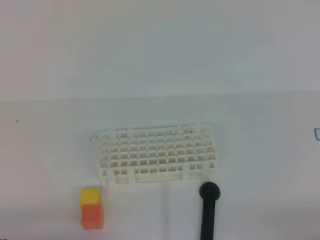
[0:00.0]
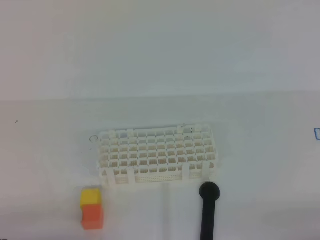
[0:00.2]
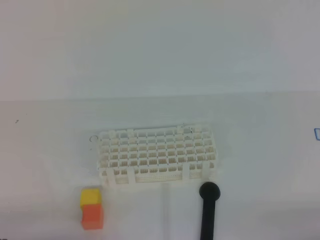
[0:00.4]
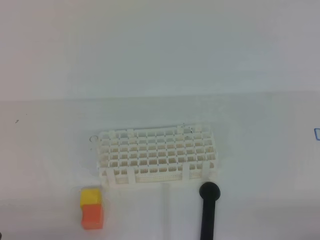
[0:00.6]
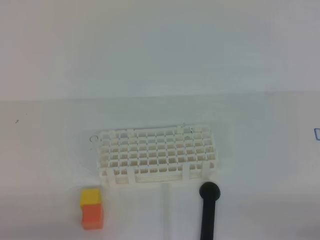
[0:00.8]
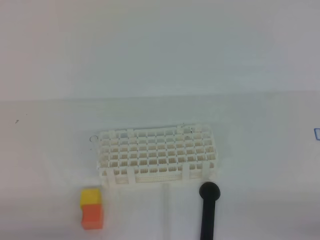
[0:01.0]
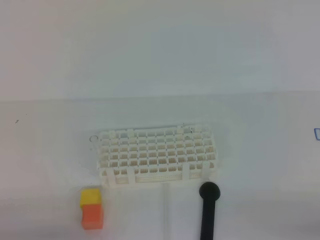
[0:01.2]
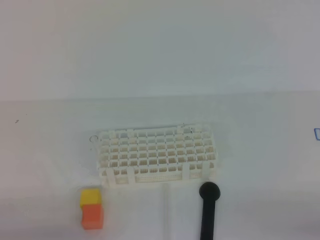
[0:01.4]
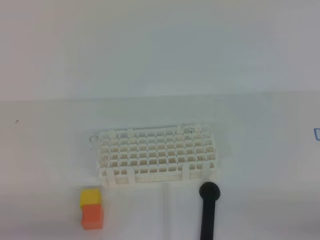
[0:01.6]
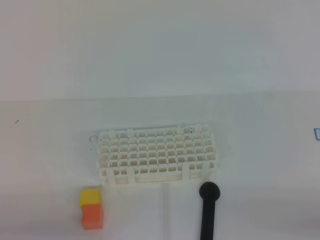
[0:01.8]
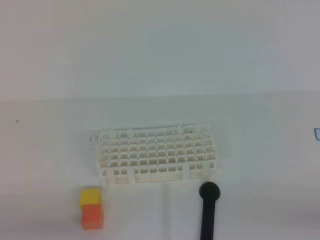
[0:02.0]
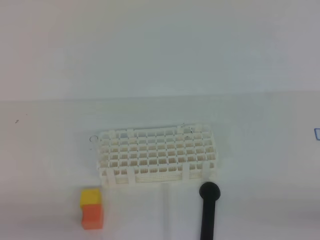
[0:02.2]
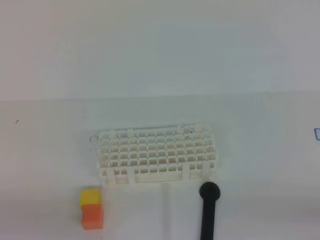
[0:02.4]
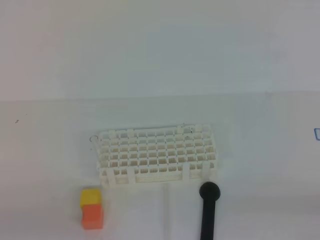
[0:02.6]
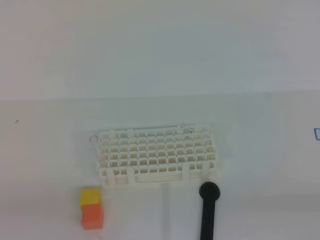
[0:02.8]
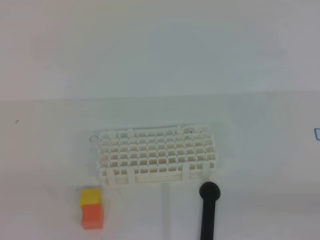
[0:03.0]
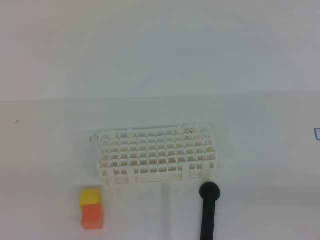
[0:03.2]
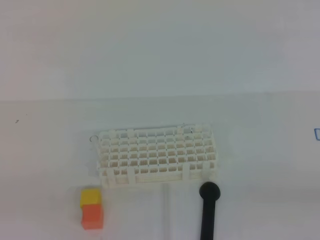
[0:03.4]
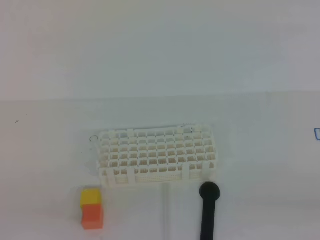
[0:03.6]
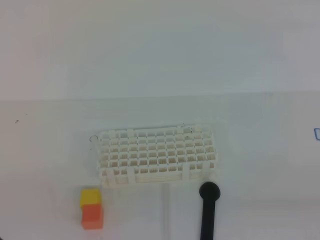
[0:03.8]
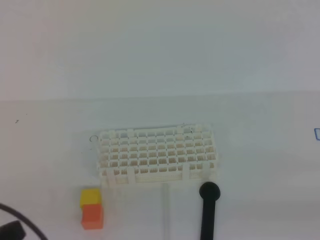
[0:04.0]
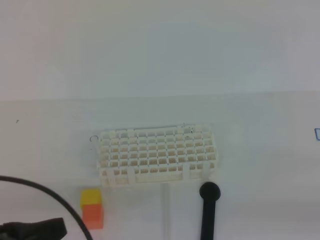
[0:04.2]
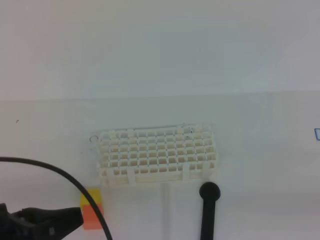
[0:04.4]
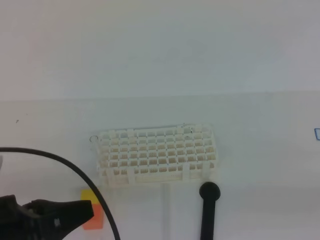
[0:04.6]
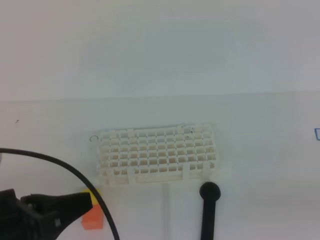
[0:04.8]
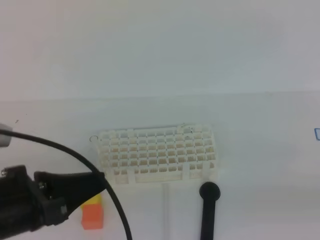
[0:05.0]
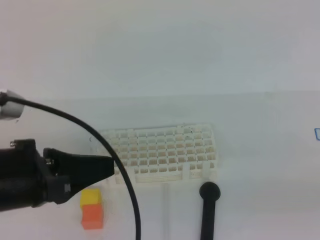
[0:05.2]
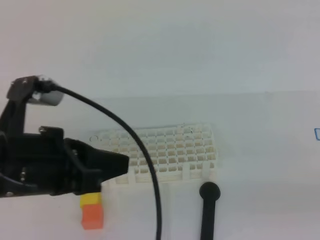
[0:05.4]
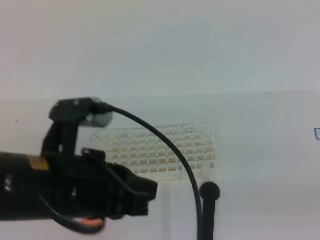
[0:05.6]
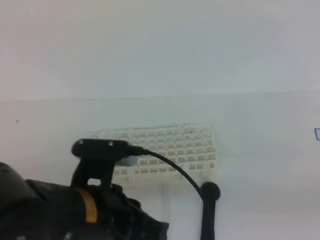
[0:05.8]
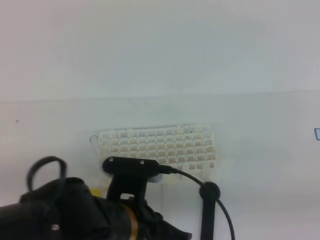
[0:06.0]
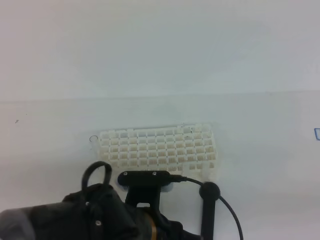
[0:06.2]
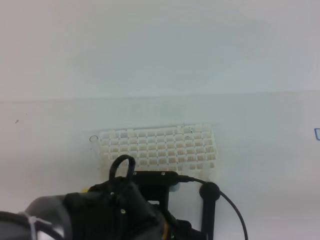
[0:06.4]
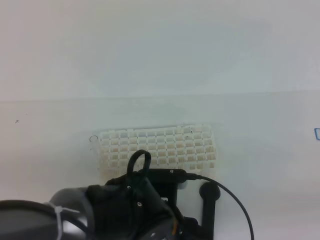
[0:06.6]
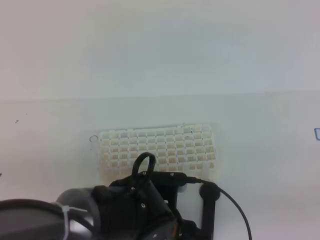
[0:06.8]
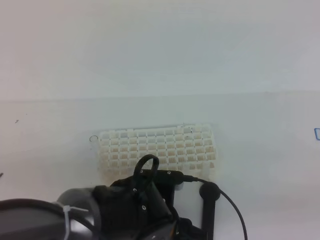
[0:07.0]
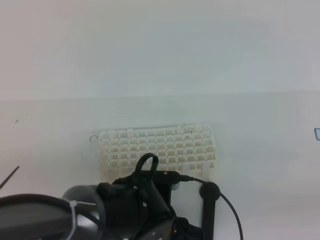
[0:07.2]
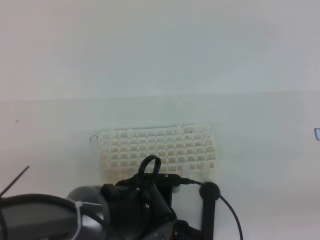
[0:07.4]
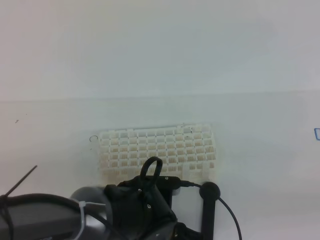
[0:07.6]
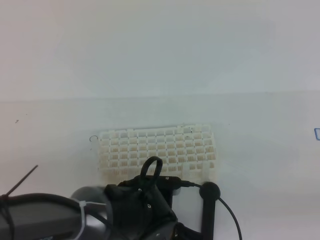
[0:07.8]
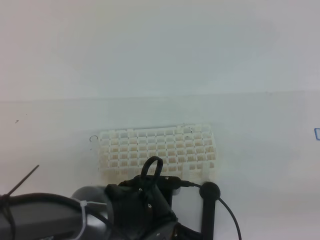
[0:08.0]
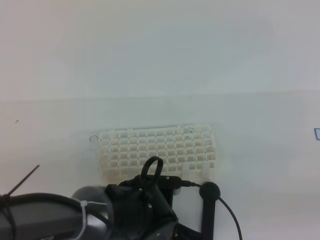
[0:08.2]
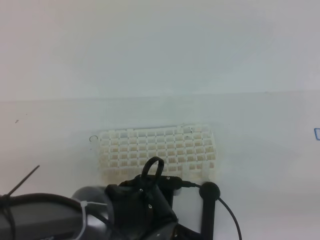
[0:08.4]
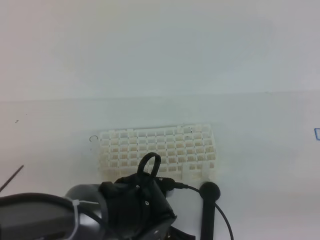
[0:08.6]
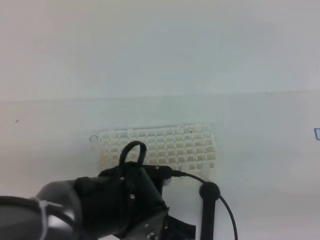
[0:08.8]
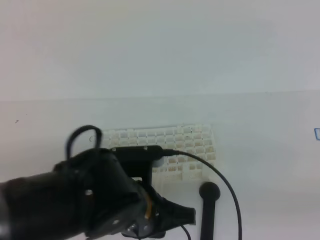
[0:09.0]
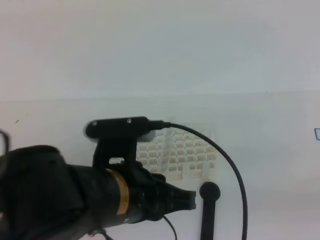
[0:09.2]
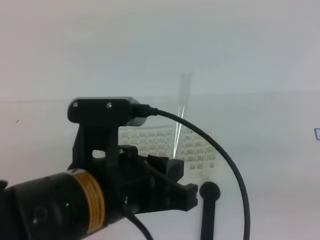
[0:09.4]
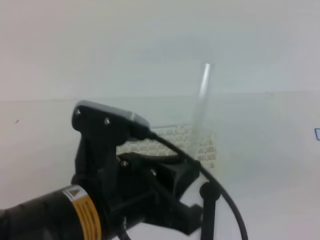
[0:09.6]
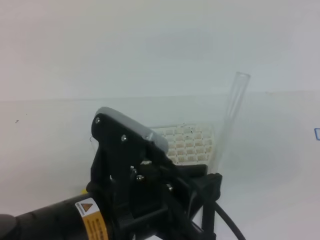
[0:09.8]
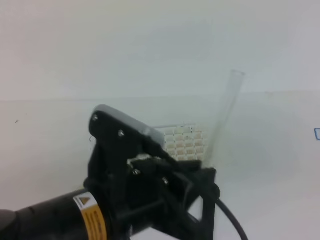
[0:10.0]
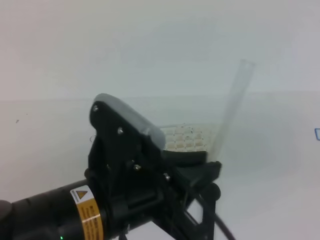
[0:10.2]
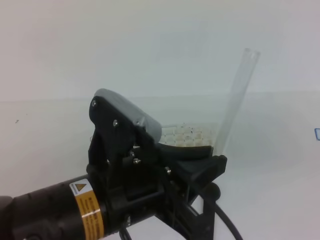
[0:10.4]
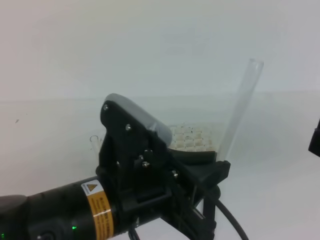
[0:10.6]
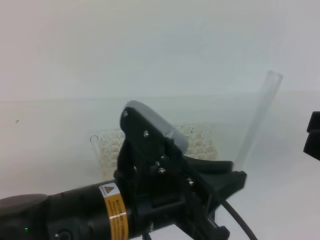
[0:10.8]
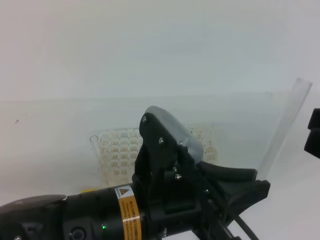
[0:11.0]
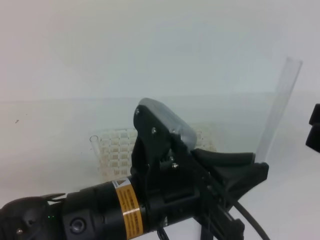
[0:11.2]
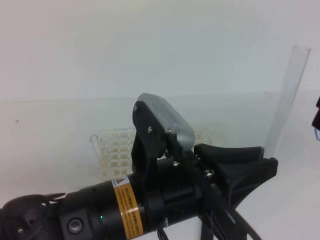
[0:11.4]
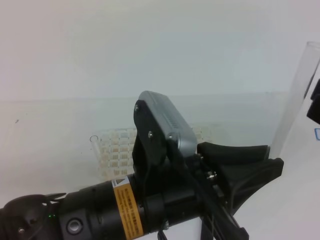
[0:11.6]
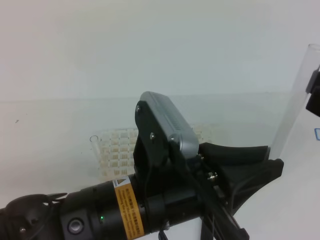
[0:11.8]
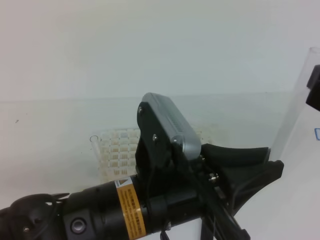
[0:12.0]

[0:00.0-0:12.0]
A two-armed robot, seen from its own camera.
0:03.0 to 0:04.4: The left gripper heads forward and to the right, covering about 10 cm.
0:04.4 to 0:06.0: The left gripper goes roughly 15 cm to the right.
0:06.0 to 0:07.6: The left gripper is displaced downward and to the right by some 10 cm, and opens up.
0:07.6 to 0:09.0: The left gripper shifts approximately 10 cm upward, and closes up.
0:09.0 to 0:10.4: The right gripper moves approximately 5 cm; the left gripper goes approximately 10 cm upward and backward.
0:10.4 to 0:12.0: The right gripper heads forward, covering roughly 5 cm, and opens.

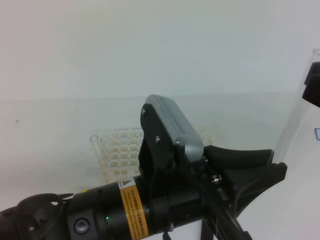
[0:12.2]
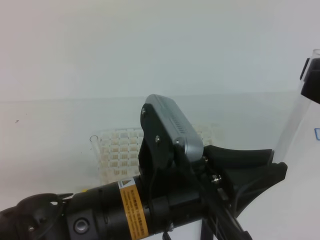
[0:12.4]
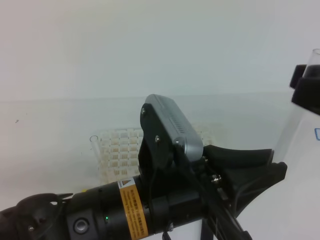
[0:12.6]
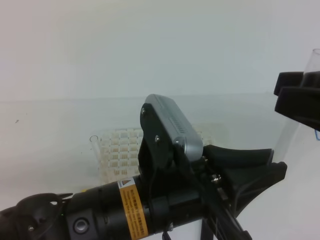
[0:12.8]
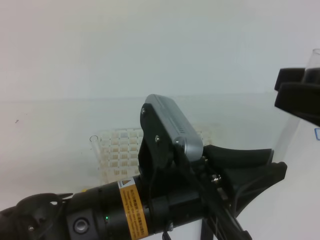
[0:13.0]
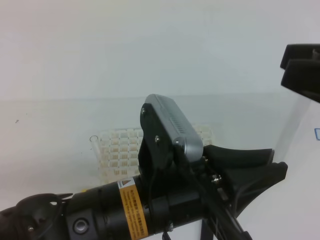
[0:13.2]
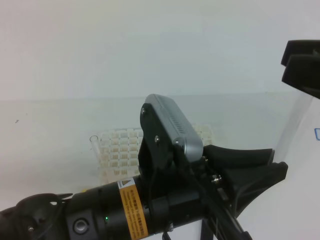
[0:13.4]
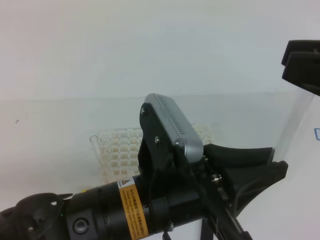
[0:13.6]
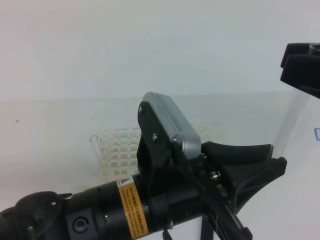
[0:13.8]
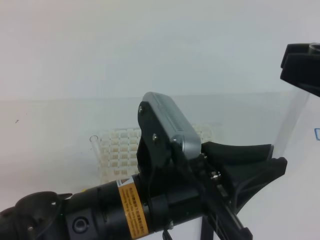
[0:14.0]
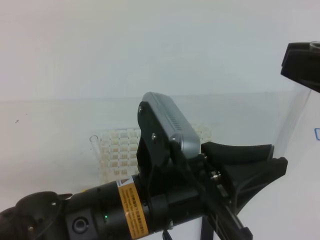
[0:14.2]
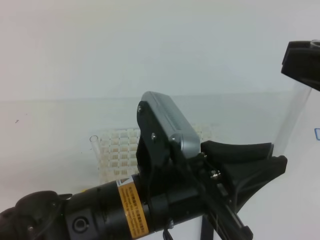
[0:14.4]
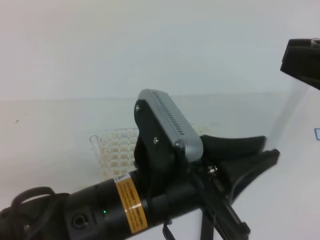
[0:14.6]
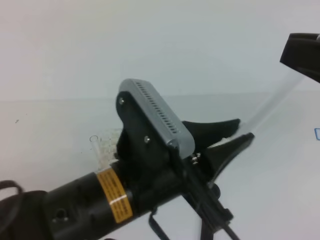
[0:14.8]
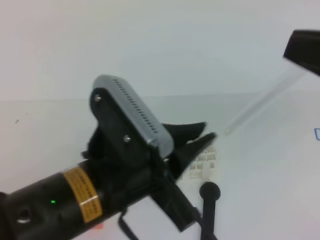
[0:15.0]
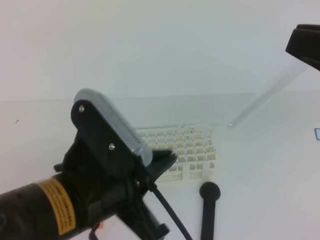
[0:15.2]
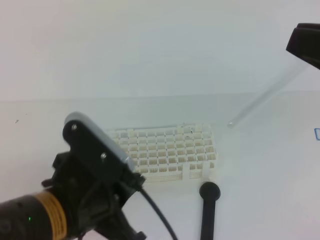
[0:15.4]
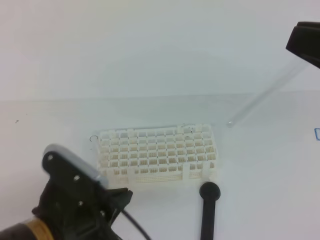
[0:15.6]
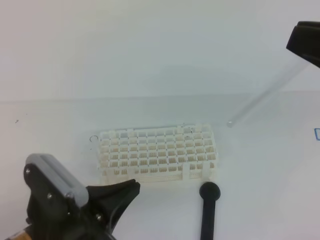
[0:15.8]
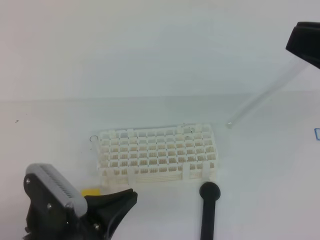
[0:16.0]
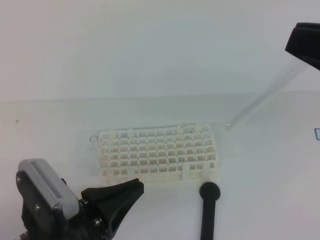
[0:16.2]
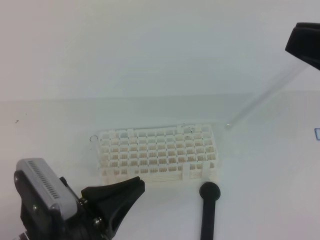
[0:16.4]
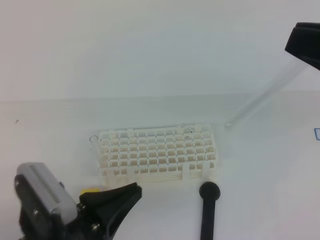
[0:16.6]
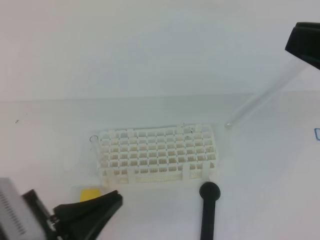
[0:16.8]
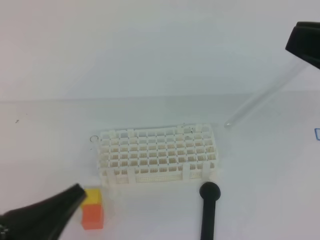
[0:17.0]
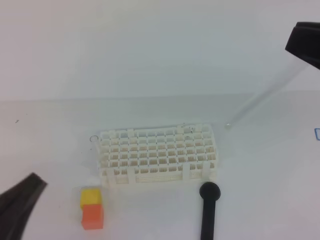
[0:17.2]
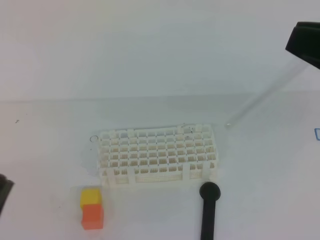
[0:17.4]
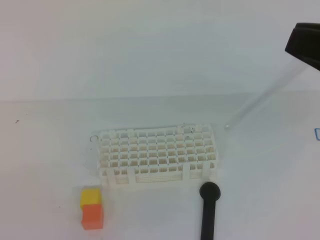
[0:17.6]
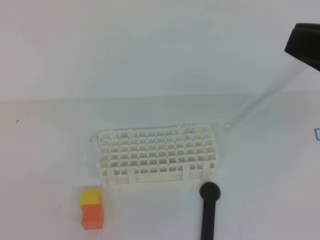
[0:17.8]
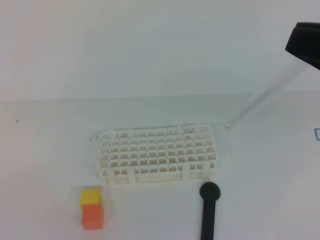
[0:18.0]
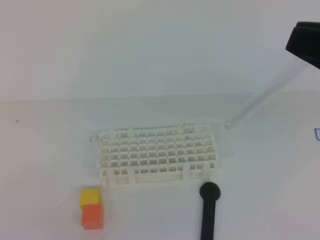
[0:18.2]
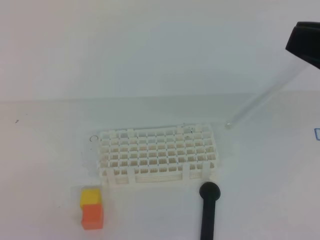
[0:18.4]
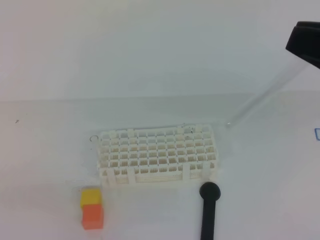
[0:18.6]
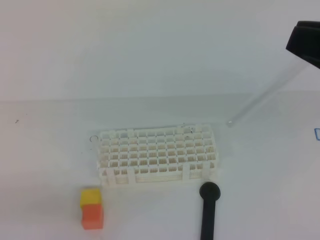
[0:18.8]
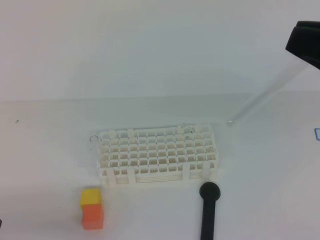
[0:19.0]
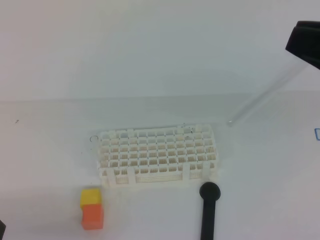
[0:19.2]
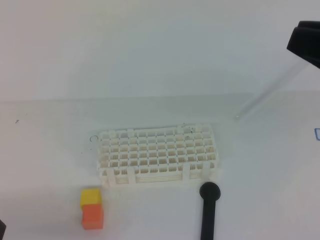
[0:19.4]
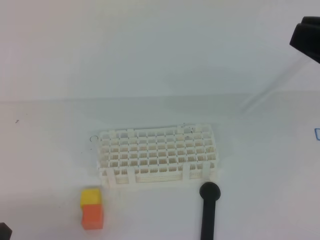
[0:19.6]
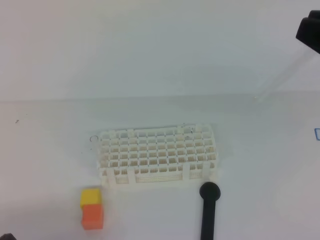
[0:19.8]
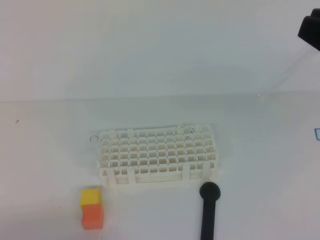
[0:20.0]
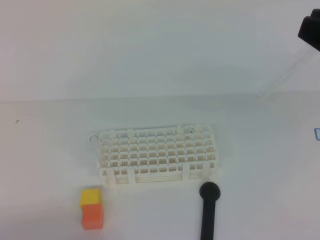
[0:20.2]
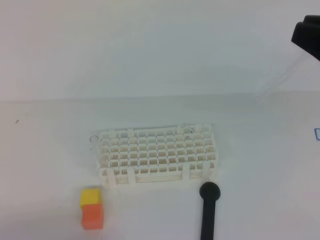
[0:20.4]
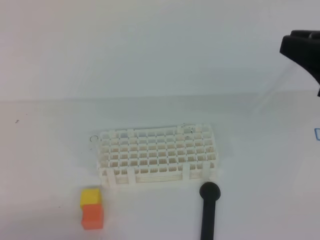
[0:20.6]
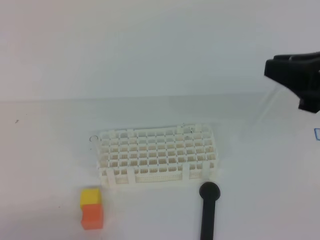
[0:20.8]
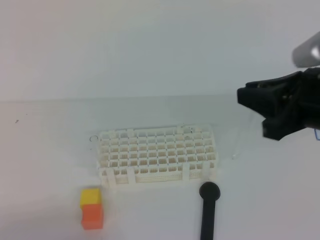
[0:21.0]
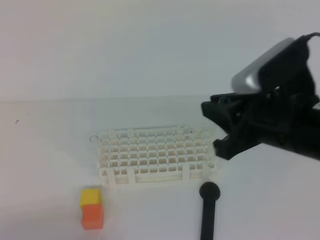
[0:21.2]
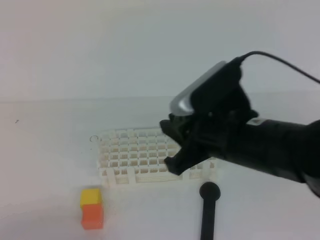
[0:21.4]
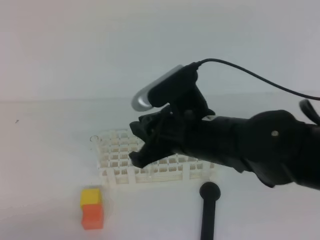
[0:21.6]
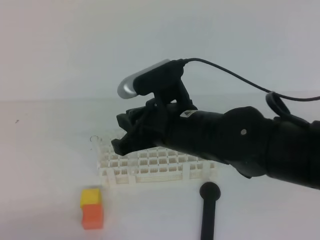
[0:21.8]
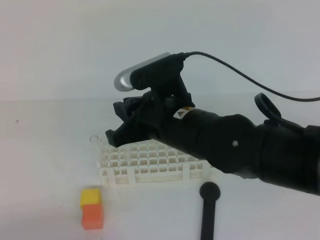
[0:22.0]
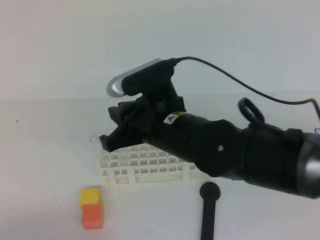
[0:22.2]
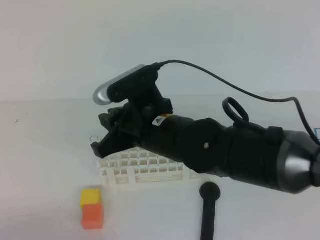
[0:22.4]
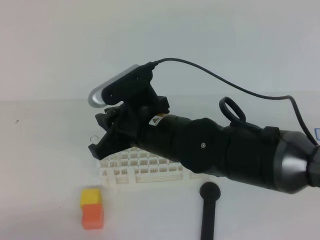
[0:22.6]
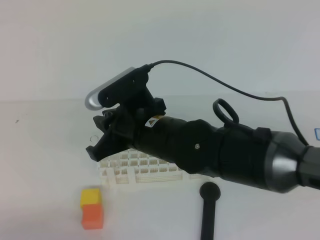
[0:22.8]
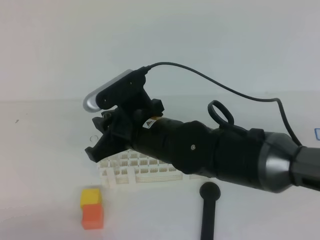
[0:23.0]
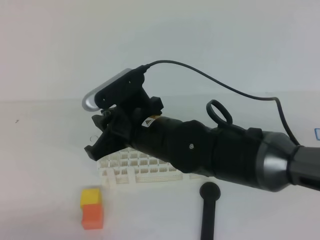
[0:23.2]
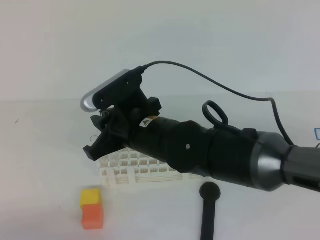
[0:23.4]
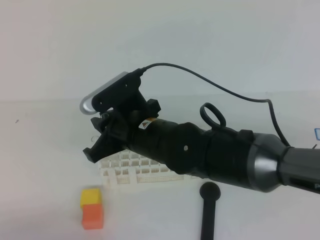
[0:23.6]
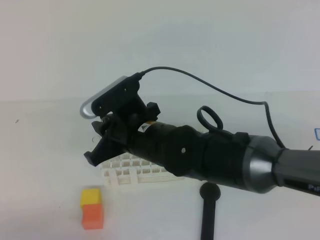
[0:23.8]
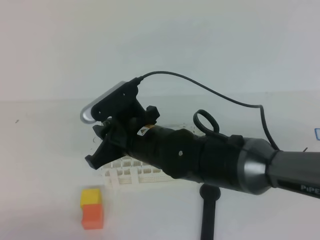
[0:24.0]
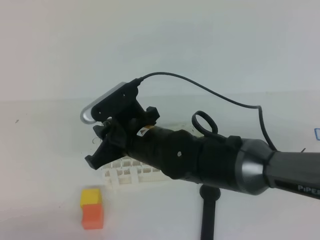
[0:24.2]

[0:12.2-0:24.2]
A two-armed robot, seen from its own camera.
0:12.2 to 0:13.8: The grippers make only small movements.
0:13.8 to 0:15.2: The left gripper shifts approximately 5 cm to the left. The right gripper closes up.
0:15.2 to 0:16.6: The left gripper shifts roughly 10 cm downward and to the left.
0:16.6 to 0:18.2: The left gripper heads backward and to the left, covering roughly 10 cm.
0:19.8 to 0:21.2: The right gripper shifts roughly 10 cm to the left and downward.
0:21.2 to 0:22.6: The right gripper shifts roughly 15 cm to the left.
0:22.6 to 0:24.2: The grippers make only small movements.
